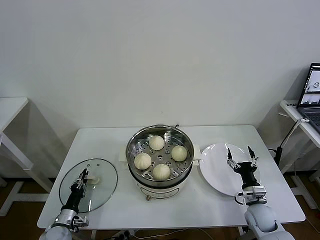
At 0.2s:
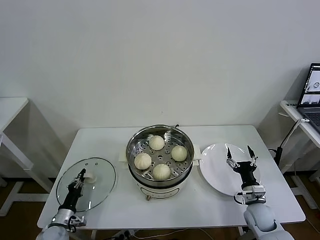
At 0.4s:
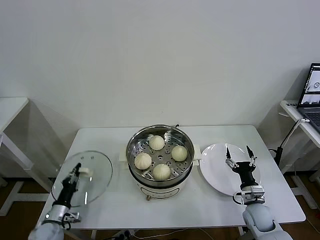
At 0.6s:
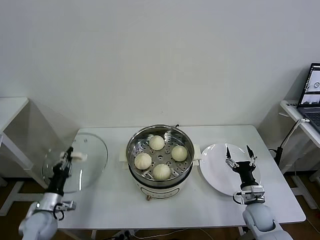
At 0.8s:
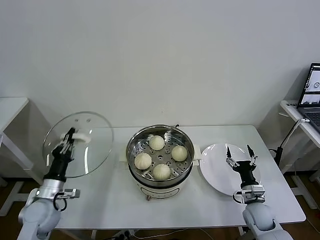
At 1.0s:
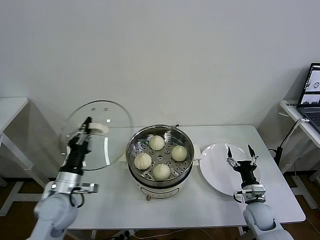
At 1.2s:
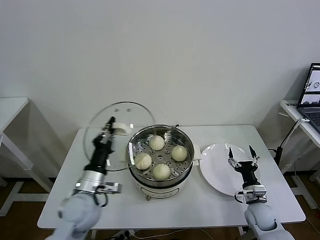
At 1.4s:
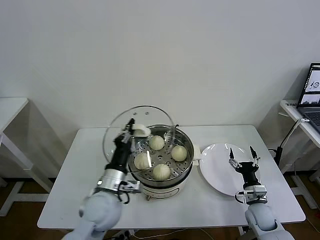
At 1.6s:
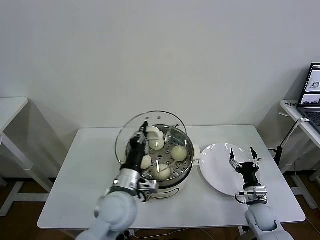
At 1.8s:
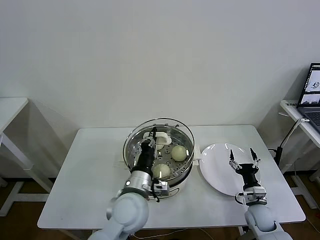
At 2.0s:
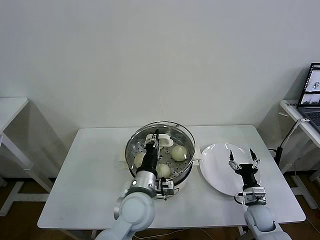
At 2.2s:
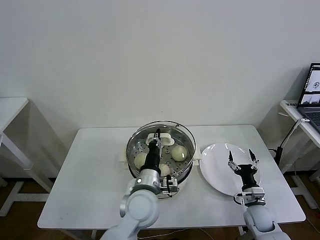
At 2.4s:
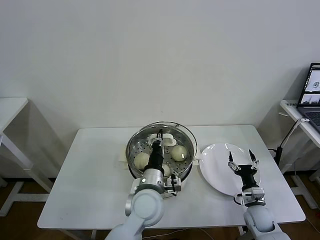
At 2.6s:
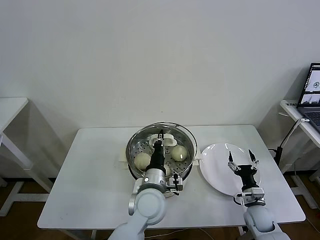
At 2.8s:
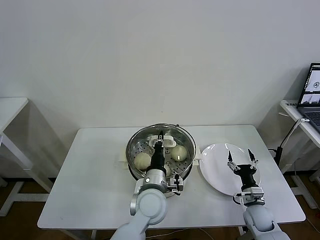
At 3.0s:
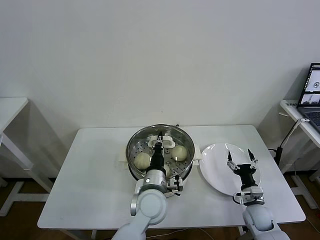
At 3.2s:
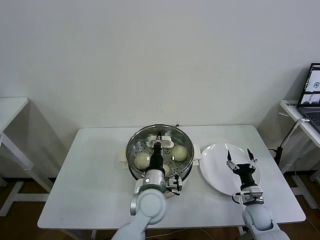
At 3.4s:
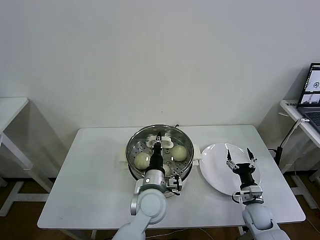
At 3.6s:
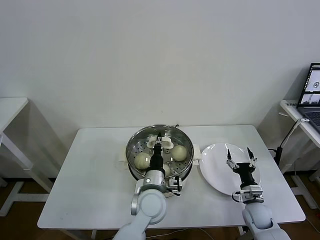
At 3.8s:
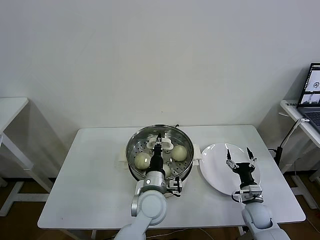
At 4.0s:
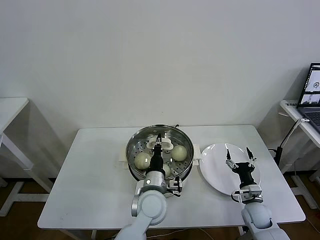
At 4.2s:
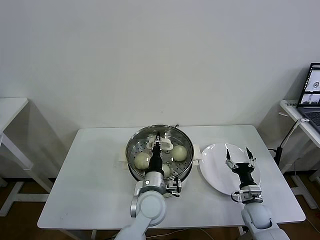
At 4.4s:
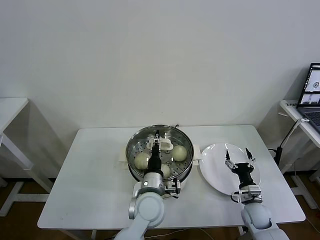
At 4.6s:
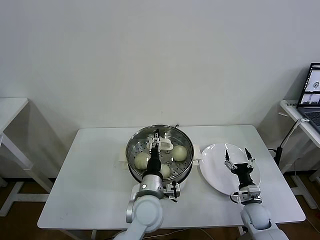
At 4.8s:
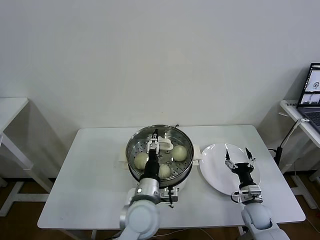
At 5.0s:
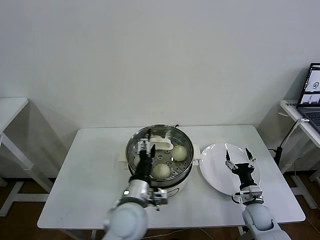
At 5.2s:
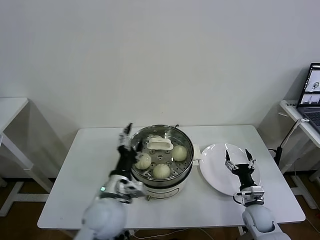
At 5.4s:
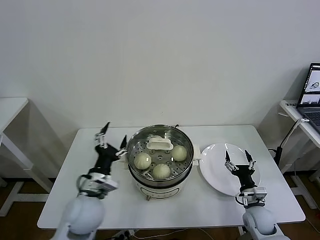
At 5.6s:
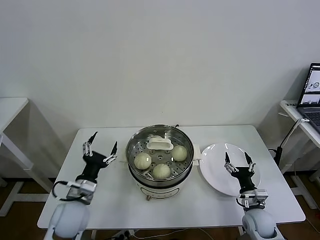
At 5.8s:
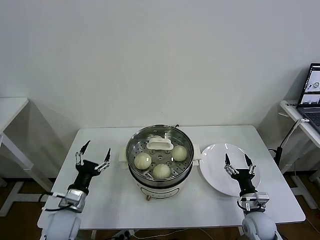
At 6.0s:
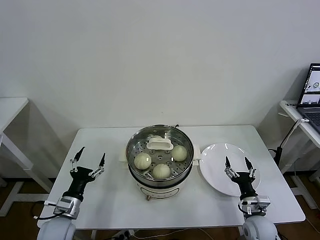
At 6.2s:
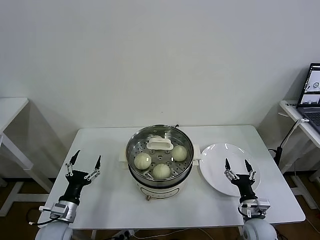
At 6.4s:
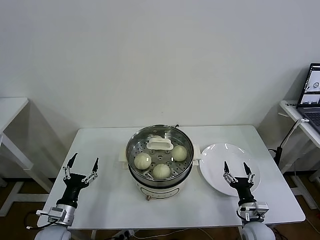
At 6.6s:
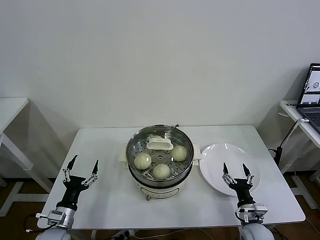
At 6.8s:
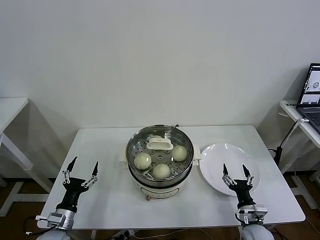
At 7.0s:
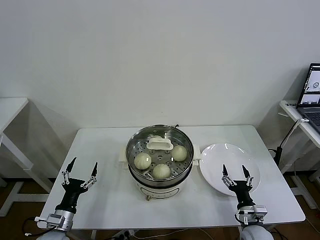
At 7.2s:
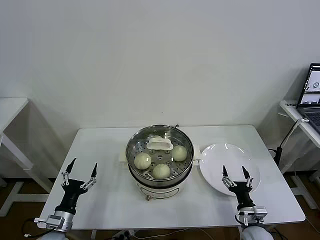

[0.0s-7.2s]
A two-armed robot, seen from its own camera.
Task of the whole recording: take steamed baozi put them in steamer then cover it.
Step, 0.4s to 4.2s: Place the pot lid on the steamer with left gripper.
0.0s to 1.4s: The left gripper heads upward and to the right, covering some 30 cm.
1.4s to 2.8s: The left gripper shifts some 15 cm to the right.
2.8s to 4.4s: The left gripper opens its fingers.
4.4s to 5.8s: The right gripper changes place by roughly 5 cm, while the left gripper heads to the left, covering about 25 cm, and opens.
5.8s to 7.2s: The left gripper shifts some 10 cm downward, to the left and backward. Meanwhile the right gripper changes place by approximately 5 cm.

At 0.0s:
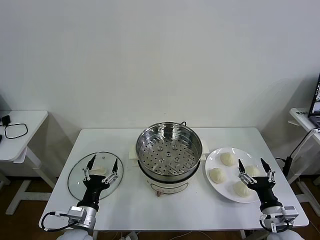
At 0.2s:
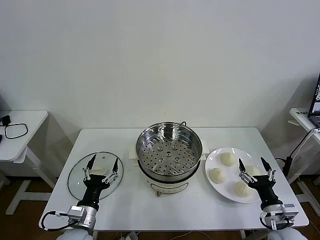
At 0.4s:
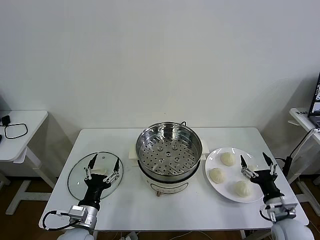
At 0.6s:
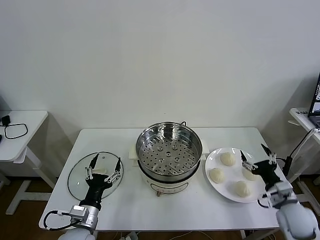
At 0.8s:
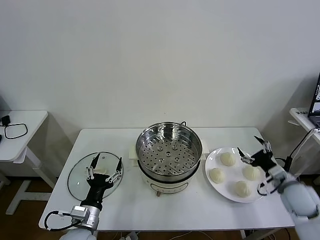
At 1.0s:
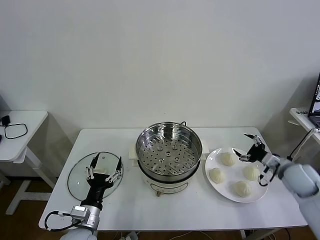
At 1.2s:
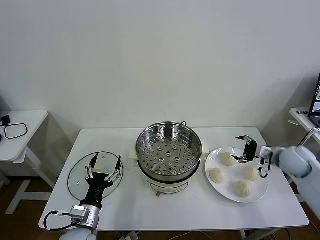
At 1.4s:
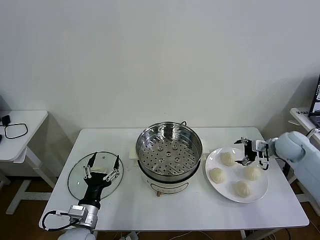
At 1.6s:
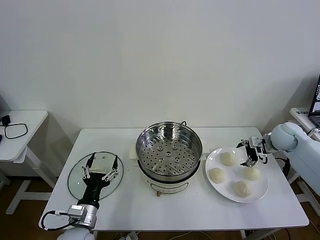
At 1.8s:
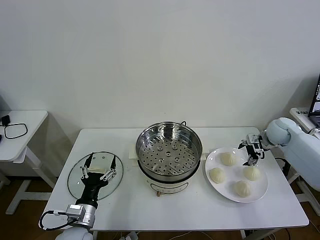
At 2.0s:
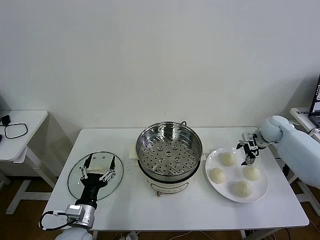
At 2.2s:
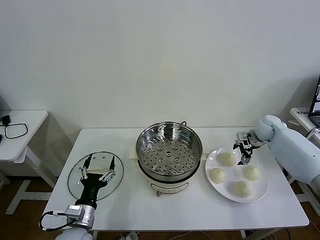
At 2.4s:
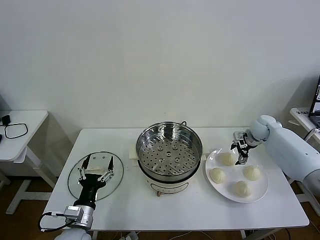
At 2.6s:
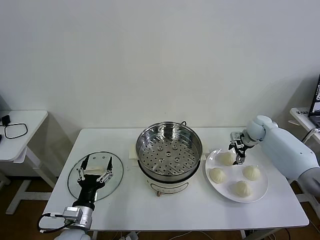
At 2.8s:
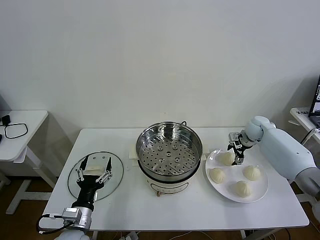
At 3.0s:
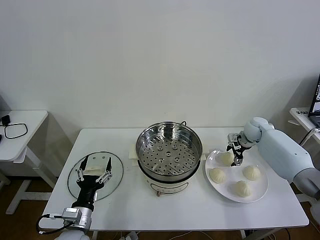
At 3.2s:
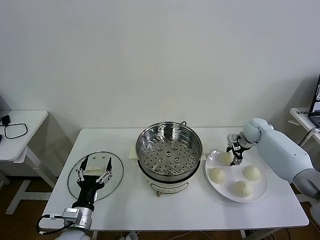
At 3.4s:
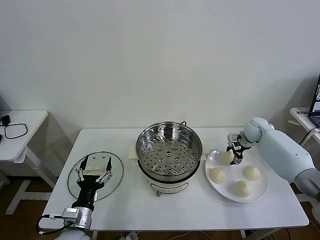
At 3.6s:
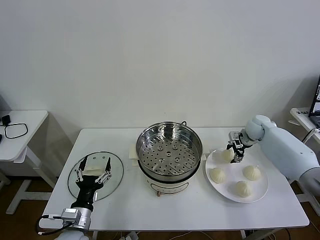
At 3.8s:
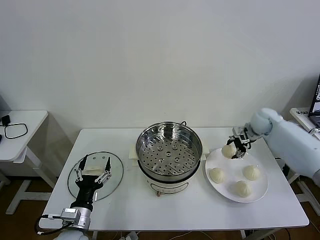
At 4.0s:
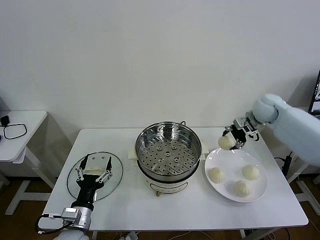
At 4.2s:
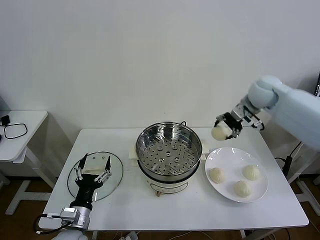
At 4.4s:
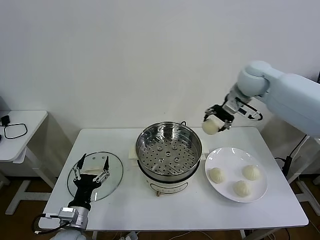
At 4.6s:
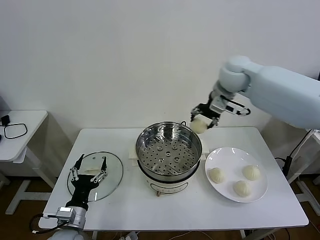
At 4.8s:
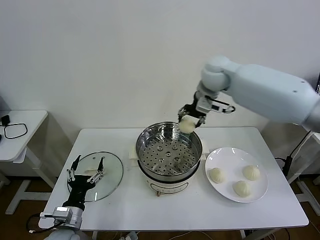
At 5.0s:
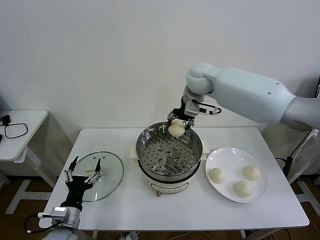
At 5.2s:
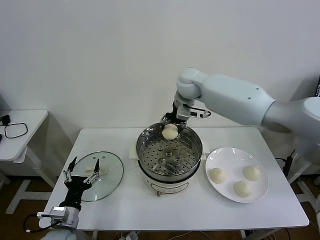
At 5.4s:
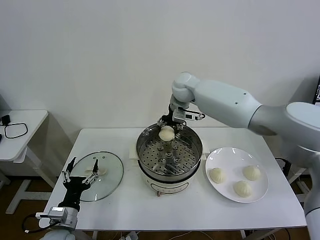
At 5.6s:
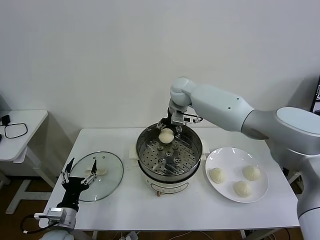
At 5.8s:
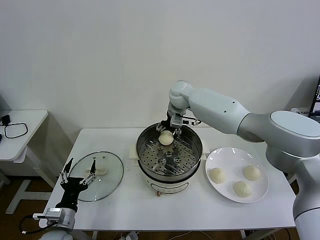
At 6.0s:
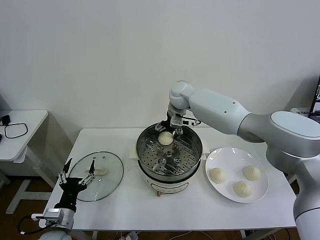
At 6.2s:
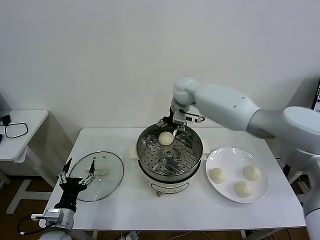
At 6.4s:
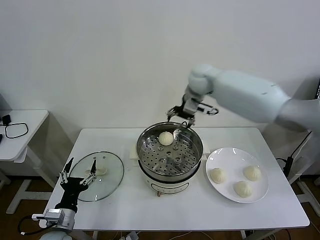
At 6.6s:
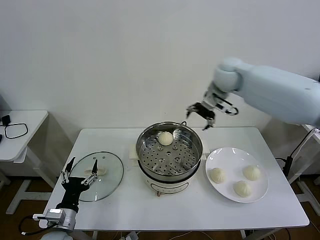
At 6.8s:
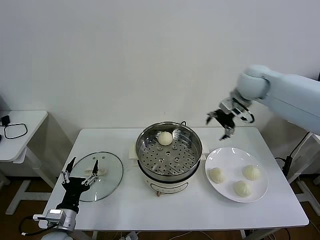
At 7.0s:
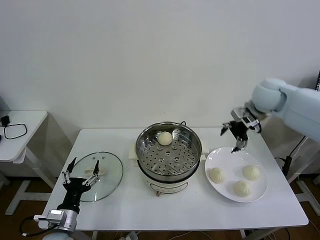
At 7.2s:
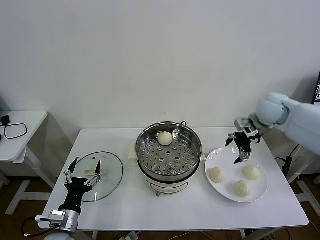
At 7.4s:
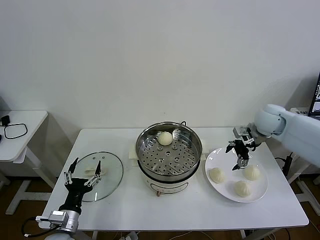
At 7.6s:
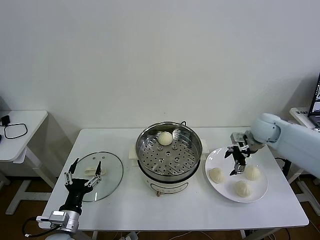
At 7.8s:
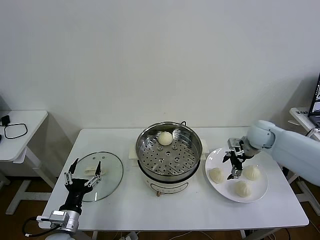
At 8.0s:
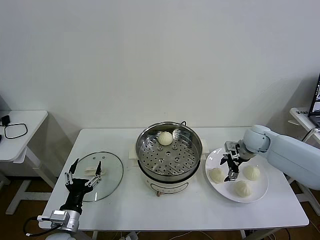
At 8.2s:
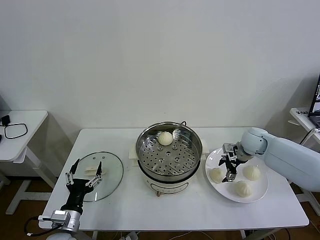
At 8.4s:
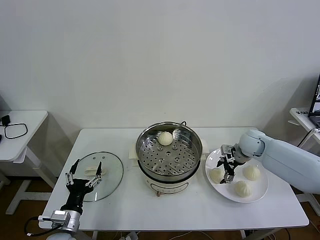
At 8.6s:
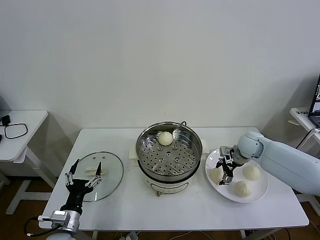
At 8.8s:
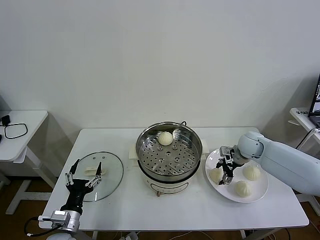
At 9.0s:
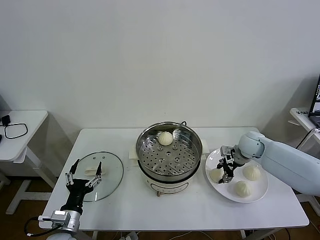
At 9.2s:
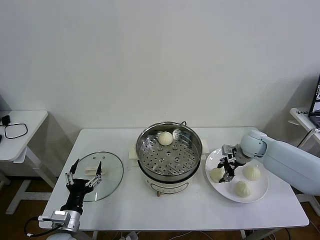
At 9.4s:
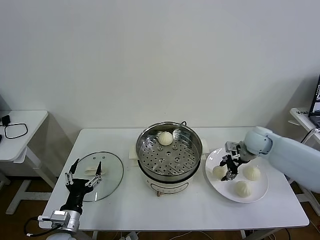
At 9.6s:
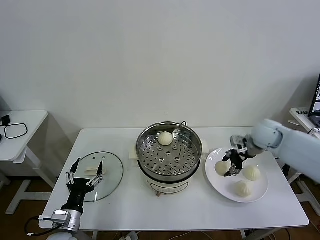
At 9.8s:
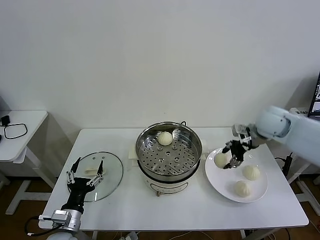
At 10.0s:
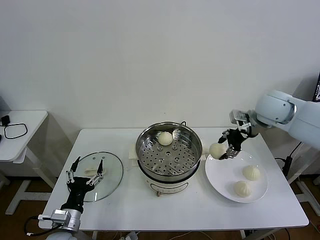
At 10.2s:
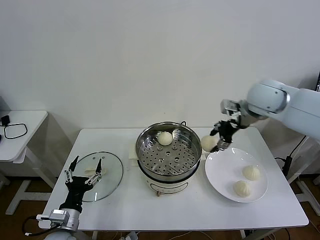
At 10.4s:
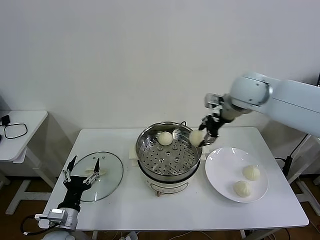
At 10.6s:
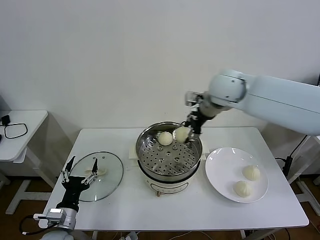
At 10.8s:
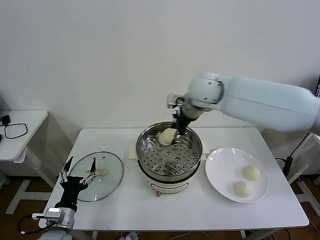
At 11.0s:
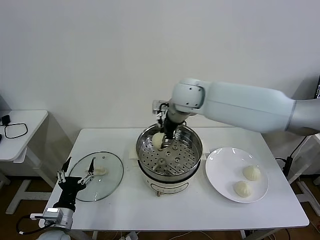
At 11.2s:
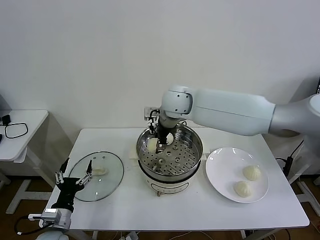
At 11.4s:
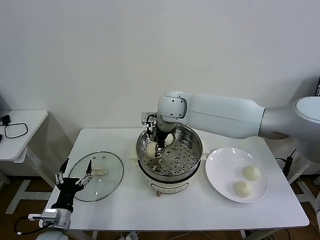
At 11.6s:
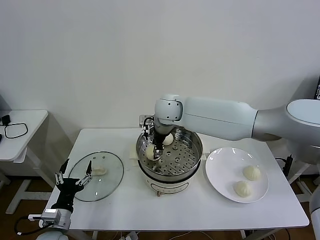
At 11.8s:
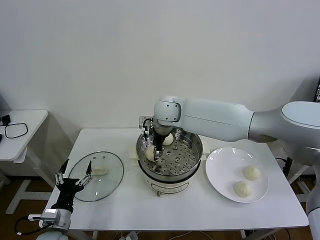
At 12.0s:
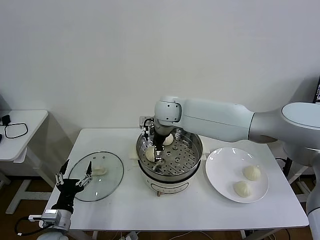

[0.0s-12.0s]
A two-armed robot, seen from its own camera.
Task of the whole recording: take steamed baozi put them in steamer then cover it.
Step, 0.0s to 3.2s: Grasp the baozi in the plate with right gripper.
Step, 3.6s to 6.0s: Place the baozi on the steamer with right gripper.
Step, 6.2s to 8.8s: Grasp the baozi in the plate with right gripper.
Step, 9.0s to 12.0s: Place the baozi on the steamer with right gripper.
1.6s to 3.0s: The right gripper shifts some 10 cm forward, downward and to the left.
3.0s to 4.4s: The right gripper heads upward and to the left, covering approximately 30 cm, and closes its fingers.
4.4s to 6.0s: The right gripper travels to the left and downward by roughly 20 cm, and opens; the left gripper changes place by approximately 5 cm.
6.0s to 7.6s: The right gripper goes roughly 30 cm to the right.
7.6s to 9.0s: The right gripper is displaced downward by roughly 5 cm, and closes its fingers.
9.0s to 10.4s: The right gripper is displaced upward and to the left by about 30 cm.
10.4s to 12.0s: The right gripper goes some 20 cm to the left and downward, and opens up.

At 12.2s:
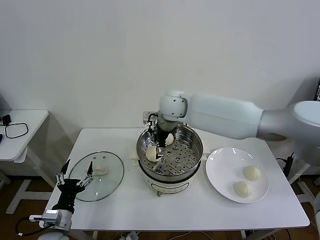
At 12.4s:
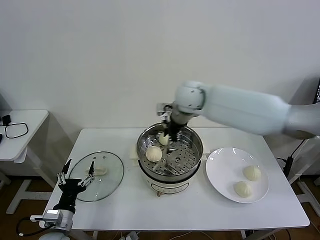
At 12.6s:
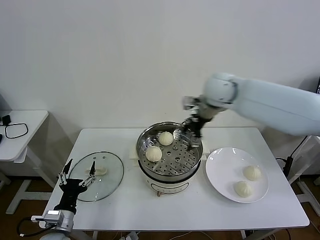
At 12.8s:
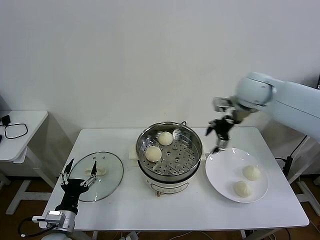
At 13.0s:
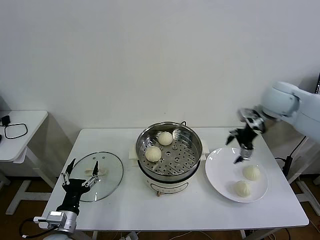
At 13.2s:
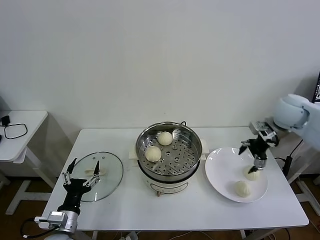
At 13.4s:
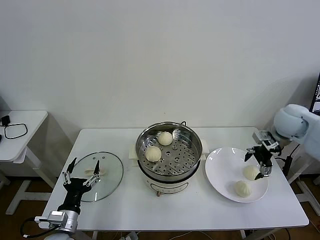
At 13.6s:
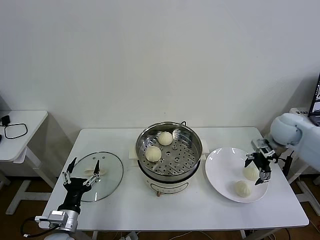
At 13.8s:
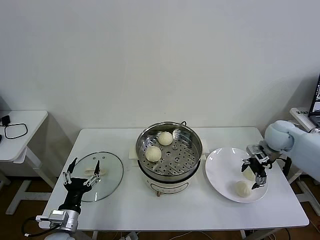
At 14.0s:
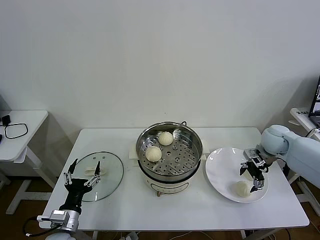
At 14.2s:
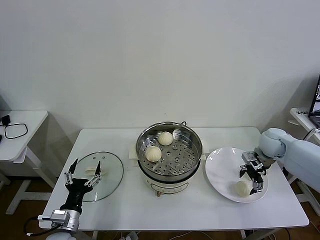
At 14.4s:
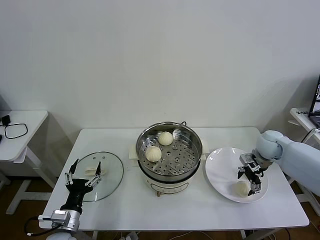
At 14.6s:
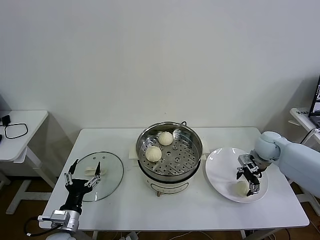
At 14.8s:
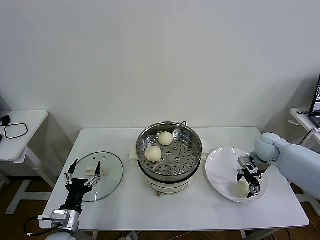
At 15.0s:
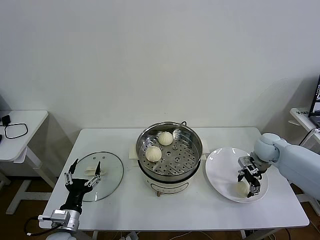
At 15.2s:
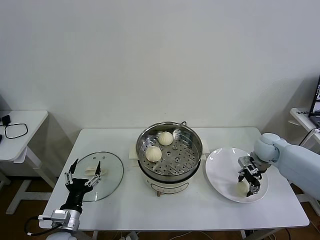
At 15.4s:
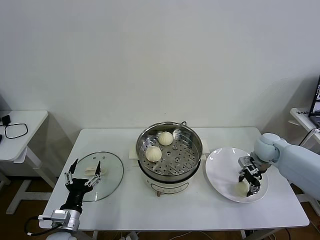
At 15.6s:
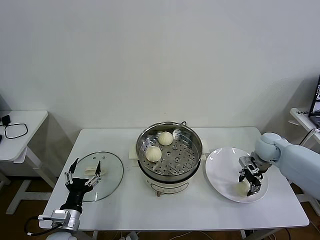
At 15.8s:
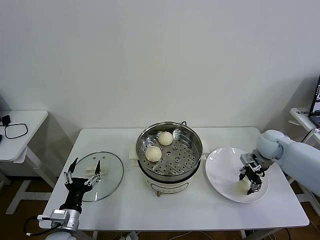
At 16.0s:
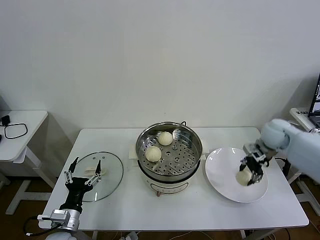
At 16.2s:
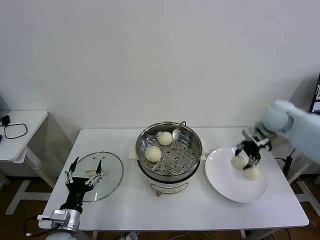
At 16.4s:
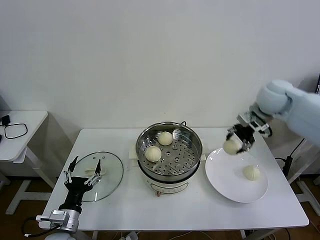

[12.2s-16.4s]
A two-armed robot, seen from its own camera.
Task of the whole recording: take steamed baozi put them in steamer then cover it.
Step, 12.2s to 15.2s: Grasp the baozi in the plate with right gripper.
12.2s to 13.6s: The right gripper travels to the right by about 35 cm.
13.6s to 15.0s: The right gripper shifts some 10 cm downward, and closes.
15.0s to 16.4s: The right gripper shifts some 20 cm upward, and closes.
